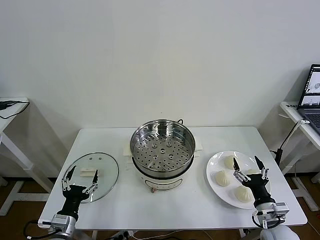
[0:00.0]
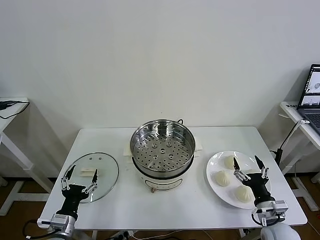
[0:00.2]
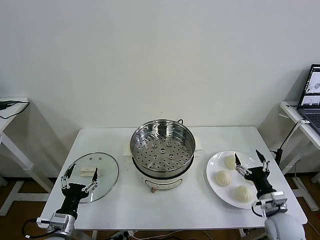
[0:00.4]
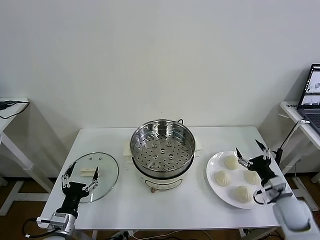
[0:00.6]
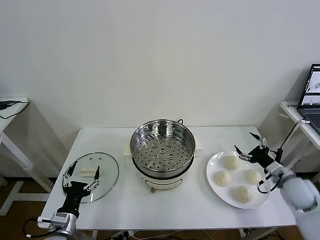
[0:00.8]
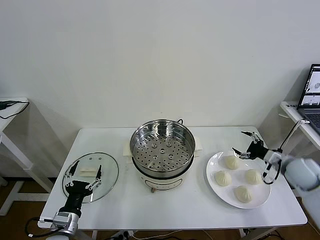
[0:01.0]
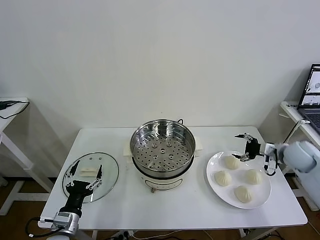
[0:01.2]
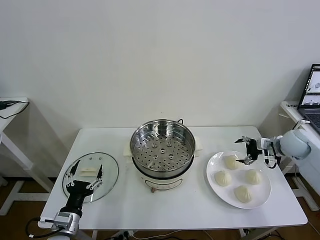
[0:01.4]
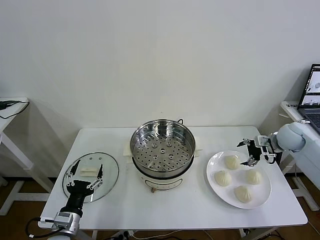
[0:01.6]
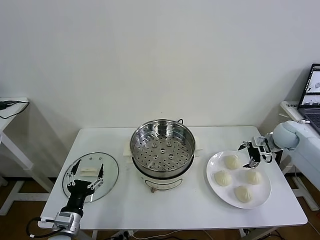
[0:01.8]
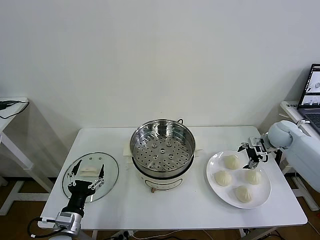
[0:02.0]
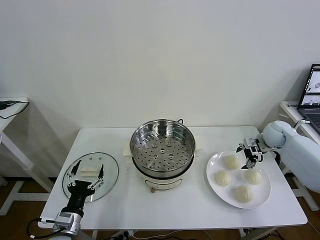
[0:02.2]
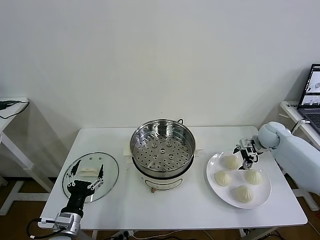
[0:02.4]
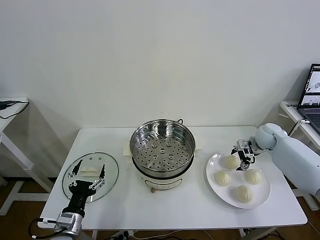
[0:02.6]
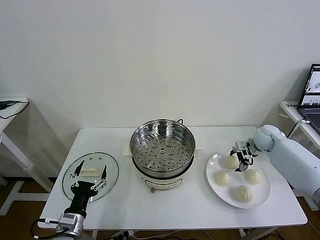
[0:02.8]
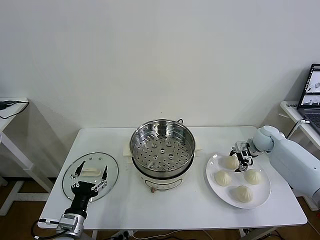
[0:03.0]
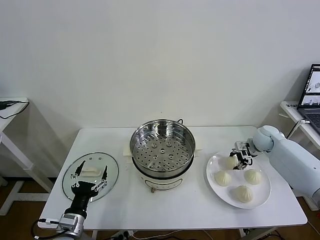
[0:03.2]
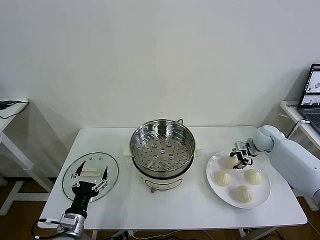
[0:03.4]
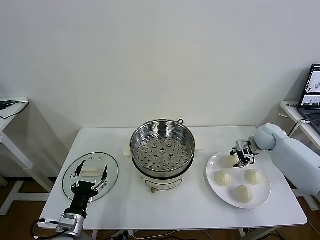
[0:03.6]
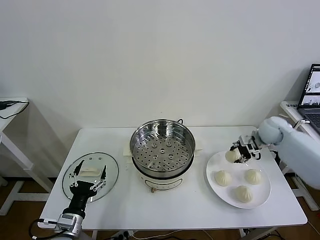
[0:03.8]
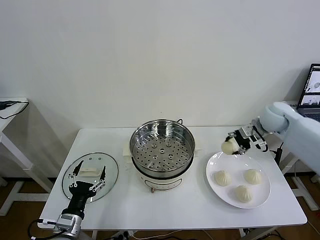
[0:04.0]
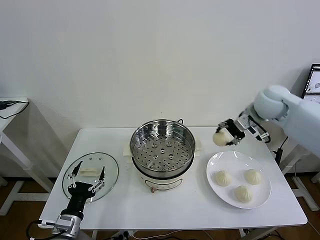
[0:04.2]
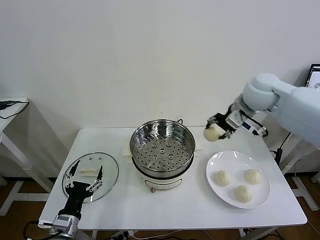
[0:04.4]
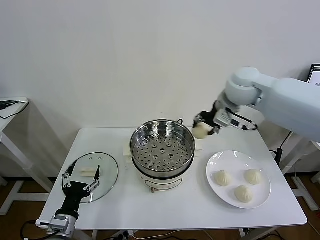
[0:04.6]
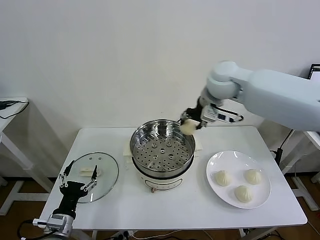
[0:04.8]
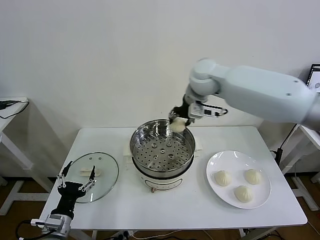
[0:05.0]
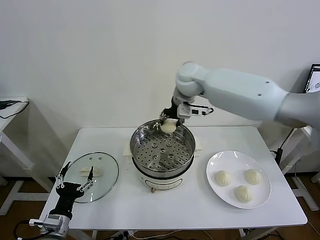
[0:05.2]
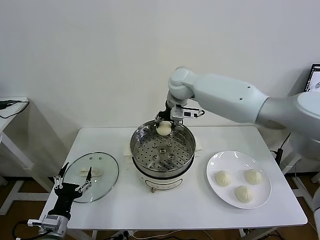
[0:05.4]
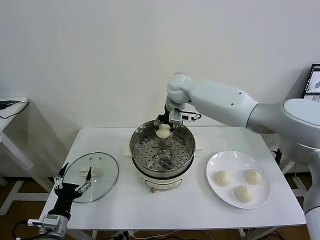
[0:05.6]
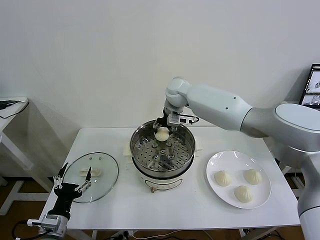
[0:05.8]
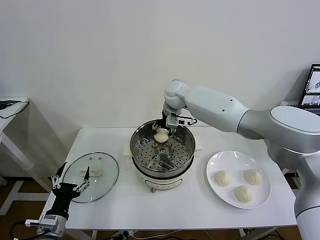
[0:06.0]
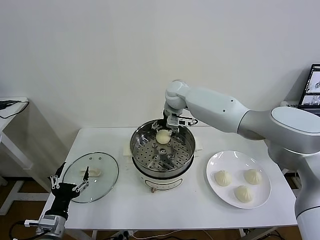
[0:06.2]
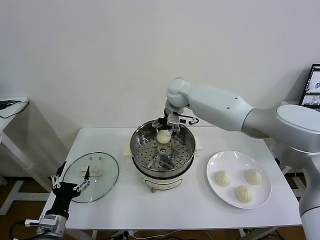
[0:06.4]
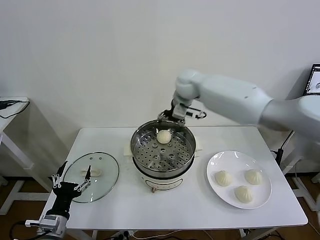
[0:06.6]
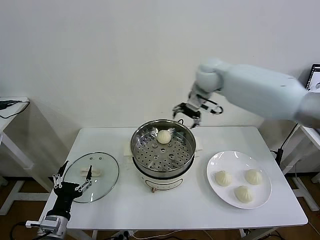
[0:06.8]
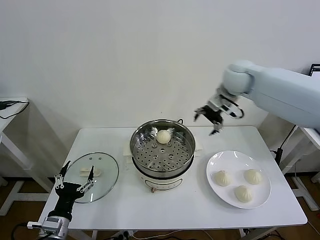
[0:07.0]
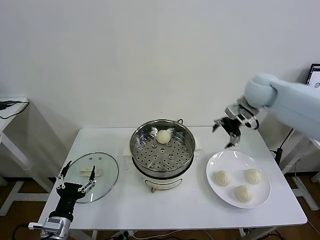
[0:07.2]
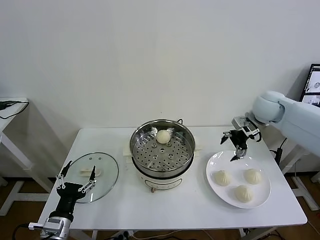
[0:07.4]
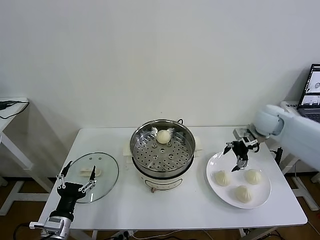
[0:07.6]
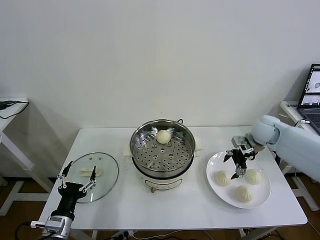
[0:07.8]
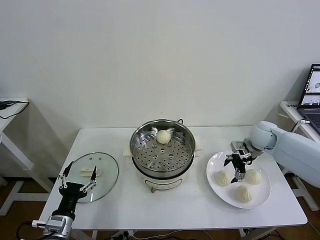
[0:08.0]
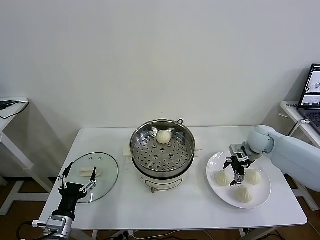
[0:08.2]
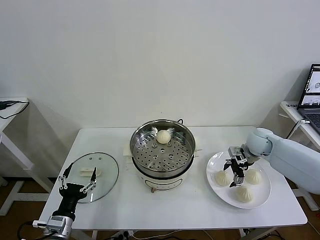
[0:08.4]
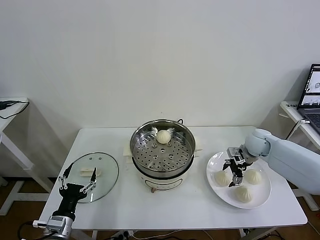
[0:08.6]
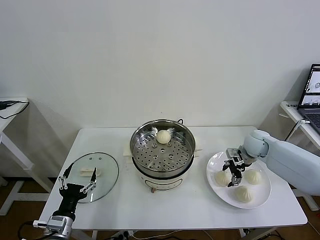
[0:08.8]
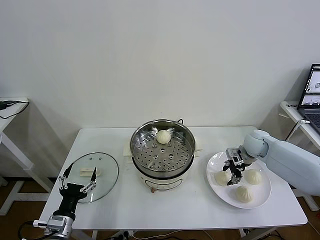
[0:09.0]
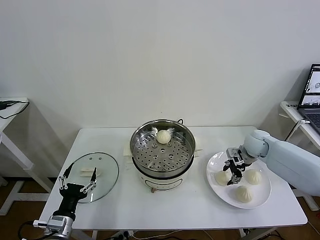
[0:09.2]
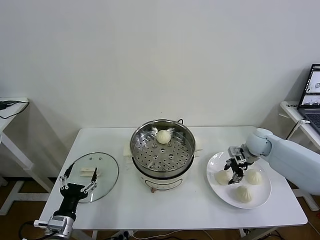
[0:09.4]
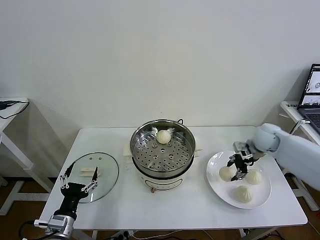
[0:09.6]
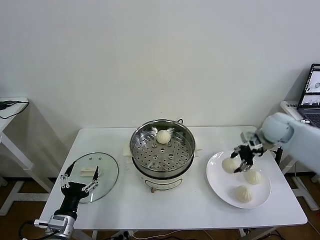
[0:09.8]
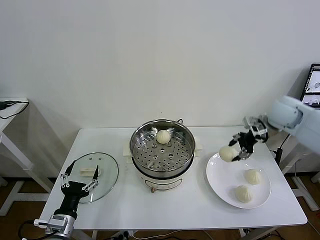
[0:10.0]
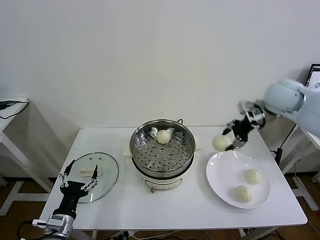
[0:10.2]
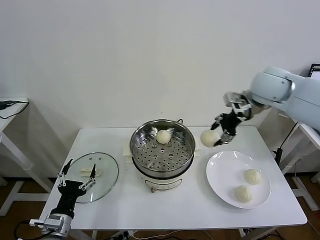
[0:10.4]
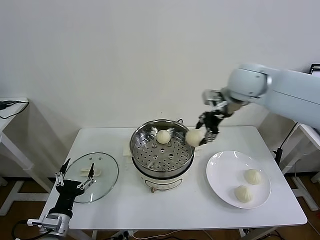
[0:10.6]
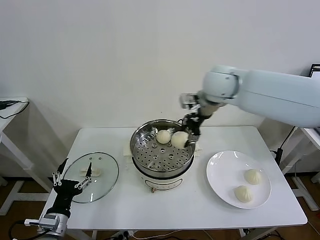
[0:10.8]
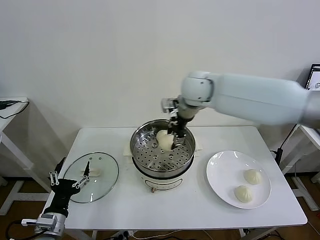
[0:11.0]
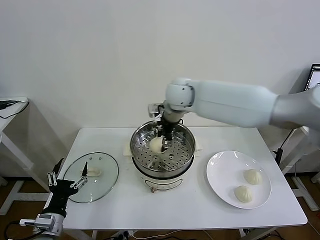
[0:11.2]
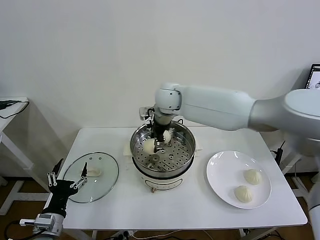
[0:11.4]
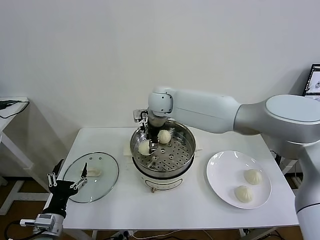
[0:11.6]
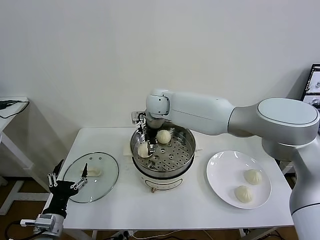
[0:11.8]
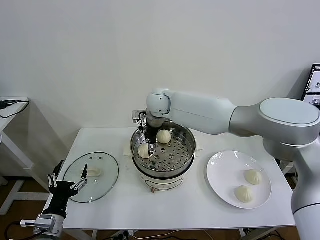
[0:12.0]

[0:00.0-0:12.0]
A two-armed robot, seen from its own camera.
Task of the whole recording: take steamed baozi put them in steamer then cover it.
Step, 0:00.0 to 0:03.2: Grasp the baozi in the plate with right gripper.
Step, 0:03.4 to 0:06.2: Place the baozi on the steamer with right gripper.
Step, 0:06.4 to 0:09.0: Grasp the baozi in the plate with right gripper.
Step, 0:09.2 to 0:11.8: Place the baozi on the steamer with right gripper.
0:01.6 to 0:03.0: The right gripper goes approximately 5 cm downward, and closes.
0:03.0 to 0:04.4: The right gripper goes some 30 cm upward and to the left.
0:04.4 to 0:06.0: The right gripper shifts some 25 cm to the left, forward and downward, and opens its fingers.
0:06.0 to 0:07.6: The right gripper heads to the right, covering roughly 30 cm.
0:07.6 to 0:09.0: The right gripper moves downward, roughly 10 cm, and closes its fingers.
0:09.0 to 0:10.4: The right gripper goes some 30 cm upward and to the left.
0:10.4 to 0:12.0: The right gripper travels to the left and downward by roughly 25 cm, and opens its fingers.

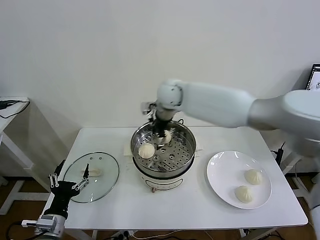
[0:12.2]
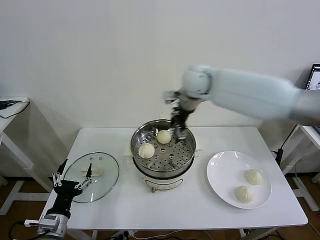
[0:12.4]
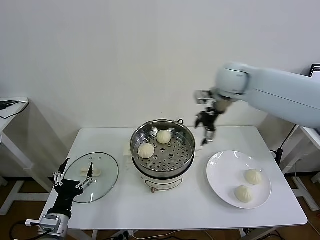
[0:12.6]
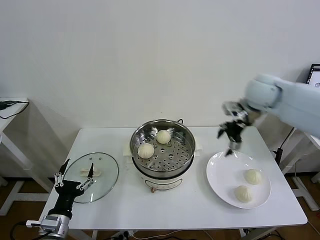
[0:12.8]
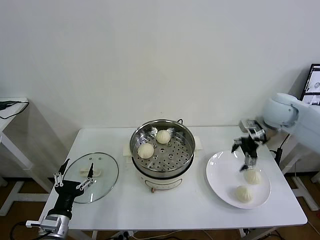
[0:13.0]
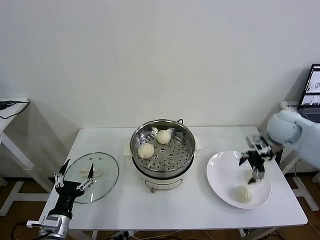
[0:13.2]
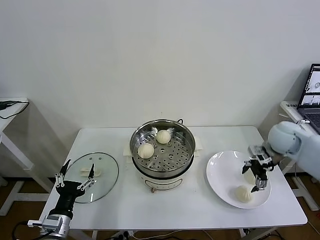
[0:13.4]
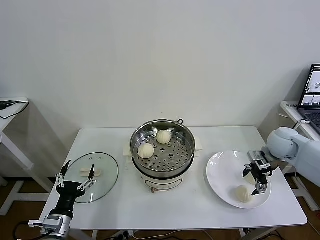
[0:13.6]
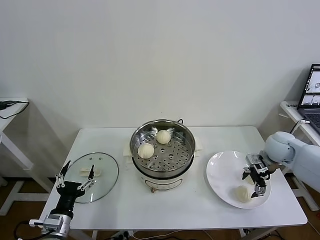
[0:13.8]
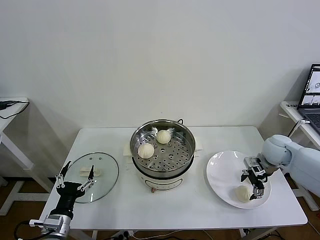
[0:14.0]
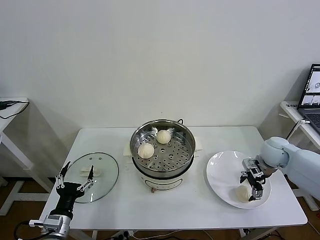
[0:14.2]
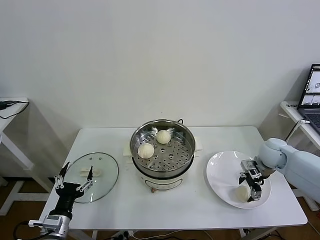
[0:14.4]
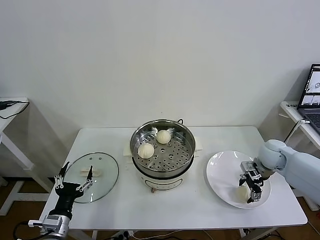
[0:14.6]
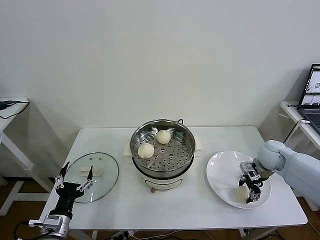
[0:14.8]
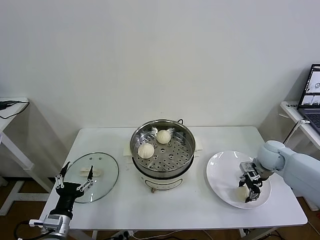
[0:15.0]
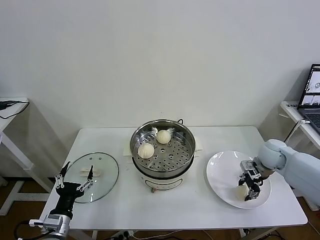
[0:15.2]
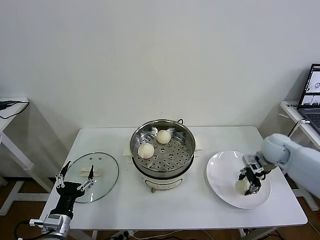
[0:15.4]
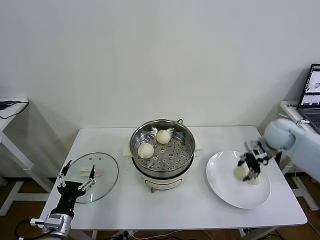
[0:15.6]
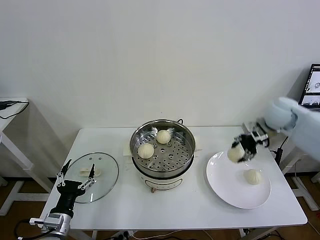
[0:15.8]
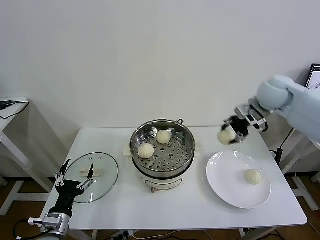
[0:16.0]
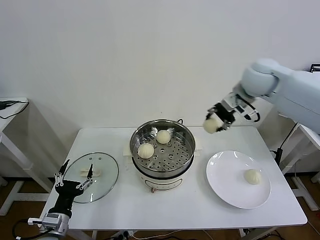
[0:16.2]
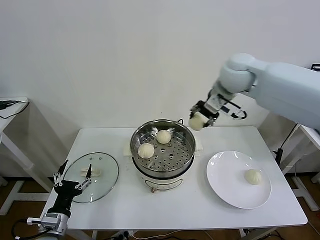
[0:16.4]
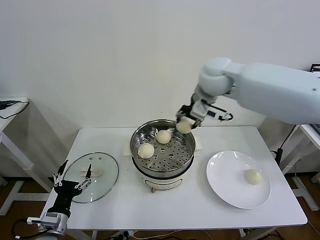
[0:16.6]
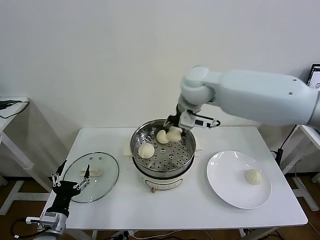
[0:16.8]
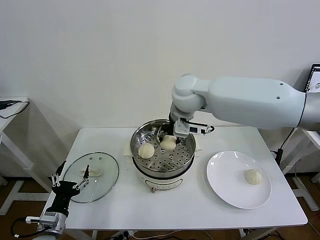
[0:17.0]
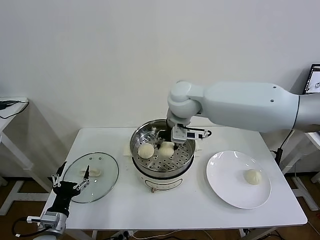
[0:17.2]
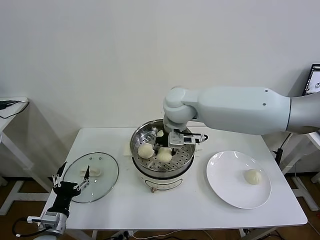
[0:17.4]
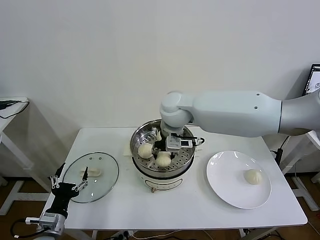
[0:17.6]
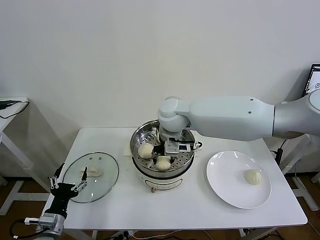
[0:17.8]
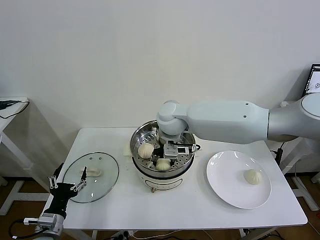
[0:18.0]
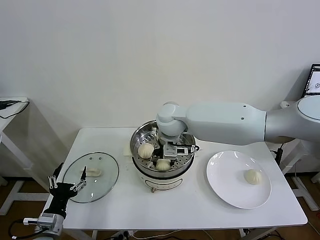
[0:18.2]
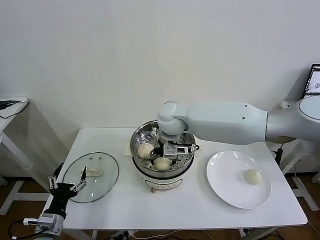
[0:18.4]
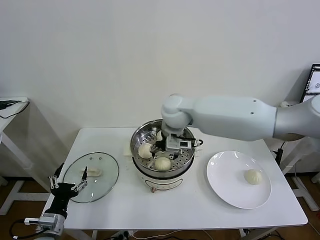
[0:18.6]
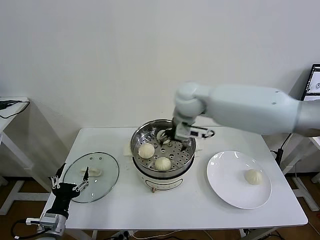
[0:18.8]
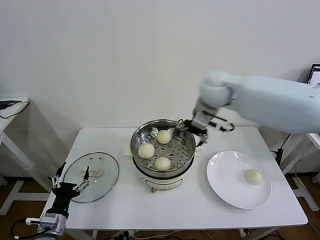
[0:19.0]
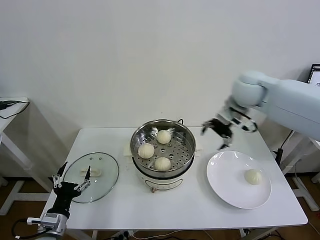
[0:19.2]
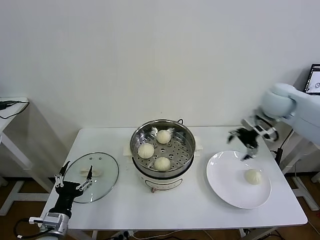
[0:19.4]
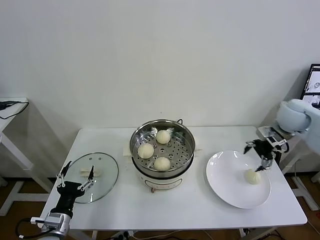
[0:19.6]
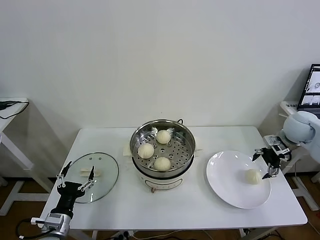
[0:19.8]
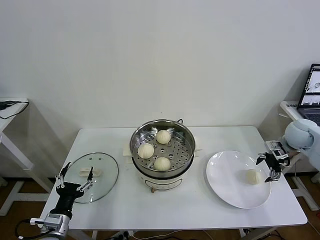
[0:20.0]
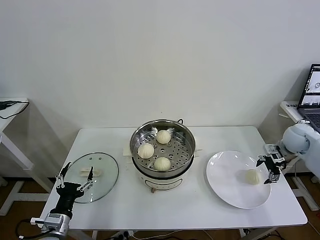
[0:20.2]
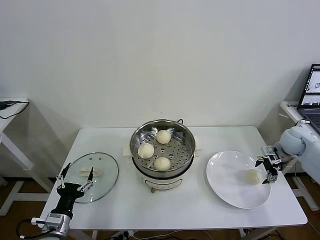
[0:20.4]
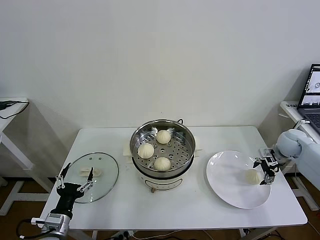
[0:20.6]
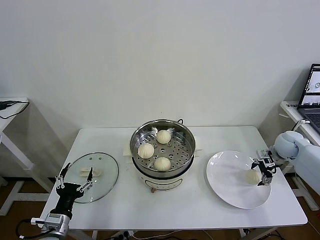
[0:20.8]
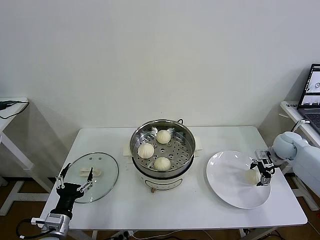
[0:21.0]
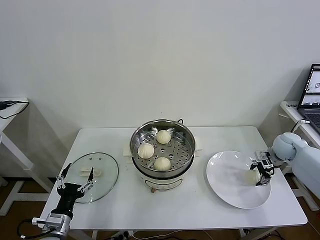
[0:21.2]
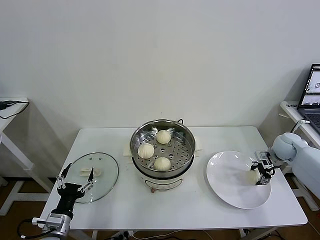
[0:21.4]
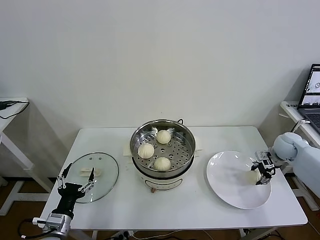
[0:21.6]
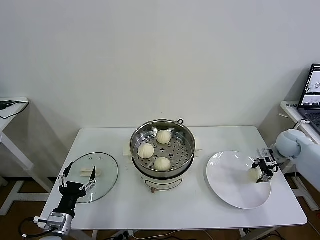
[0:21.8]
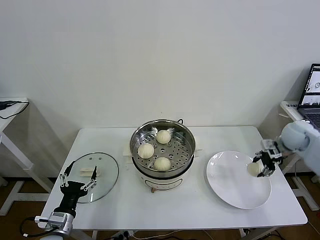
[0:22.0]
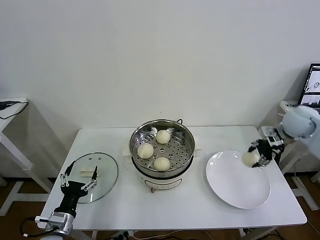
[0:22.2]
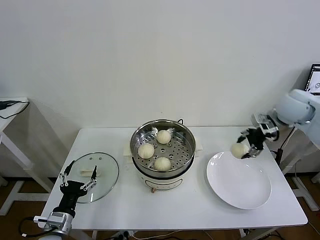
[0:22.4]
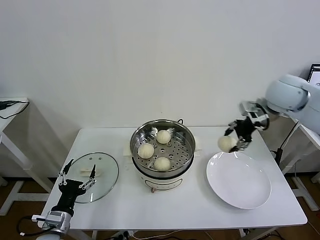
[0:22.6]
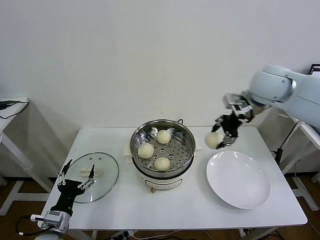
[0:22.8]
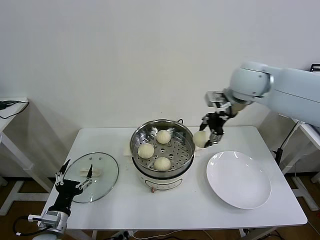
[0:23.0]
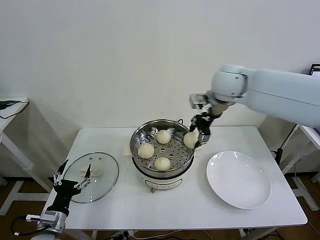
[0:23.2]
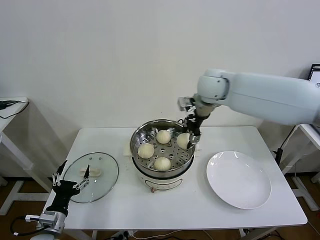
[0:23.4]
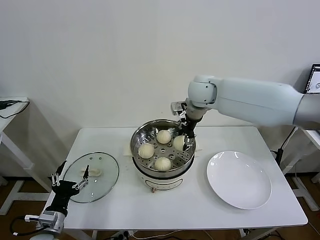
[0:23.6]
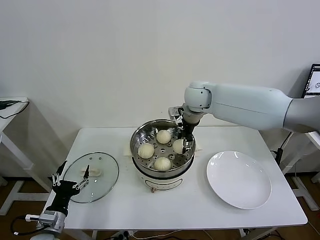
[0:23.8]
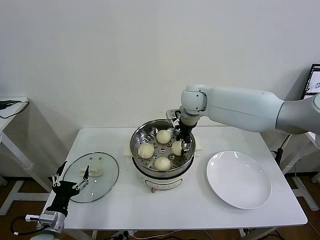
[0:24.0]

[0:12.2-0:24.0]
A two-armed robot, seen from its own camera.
Task of the whole recording: take steamed baozi put them in steamer then cover it.
Step, 0:12.2 to 0:14.8: Grasp the baozi in the plate with right gripper.
Step, 0:15.2 to 0:18.4: Place the baozi on the steamer with right gripper.
Step, 0:18.6 to 0:21.4: Grasp the baozi in the plate with right gripper.
0:12.2 to 0:13.6: The right gripper moves to the right and downward, approximately 35 cm.
0:13.6 to 0:15.2: The right gripper closes up.
0:15.2 to 0:16.6: The right gripper moves to the left and upward, about 35 cm.
0:16.6 to 0:18.2: The right gripper goes about 15 cm downward and to the left.
0:18.2 to 0:19.6: The right gripper shifts roughly 40 cm to the right, and opens up.
0:19.6 to 0:21.0: The right gripper moves downward, roughly 15 cm.
0:21.0 to 0:22.6: The right gripper moves upward and to the left, roughly 30 cm, and closes up.
0:22.6 to 0:24.0: The right gripper shifts about 20 cm to the left.
